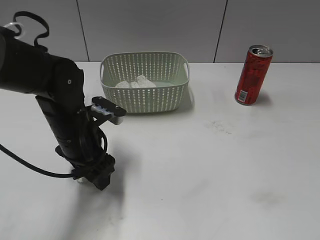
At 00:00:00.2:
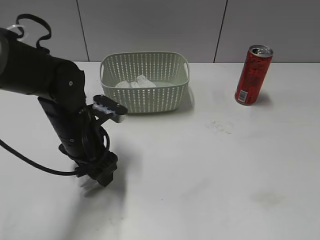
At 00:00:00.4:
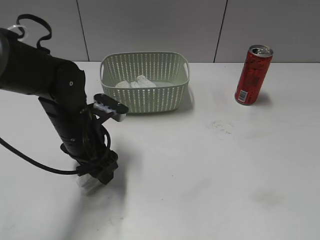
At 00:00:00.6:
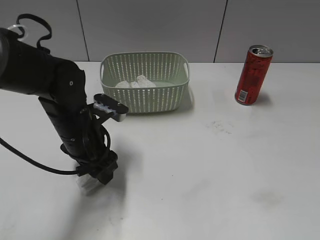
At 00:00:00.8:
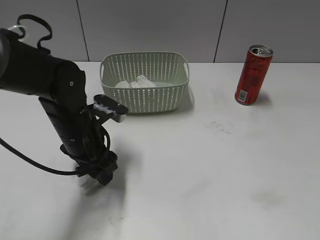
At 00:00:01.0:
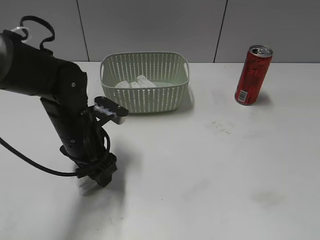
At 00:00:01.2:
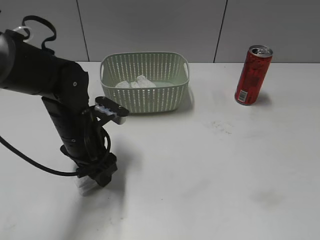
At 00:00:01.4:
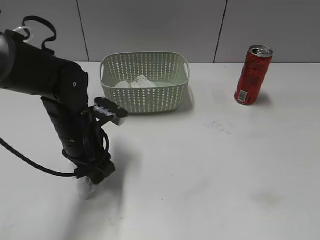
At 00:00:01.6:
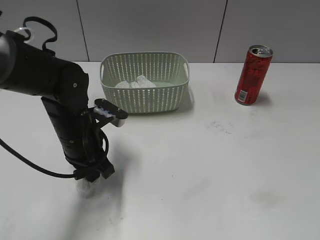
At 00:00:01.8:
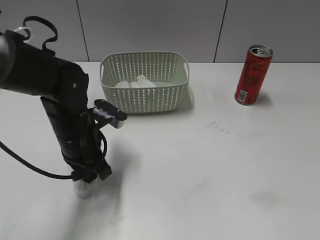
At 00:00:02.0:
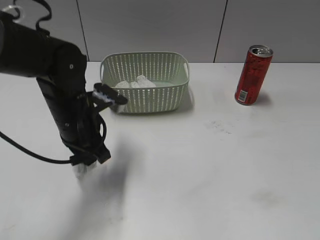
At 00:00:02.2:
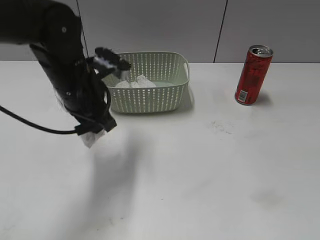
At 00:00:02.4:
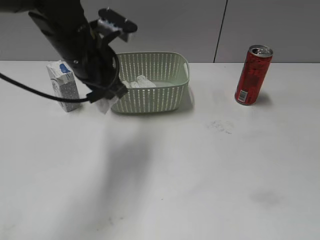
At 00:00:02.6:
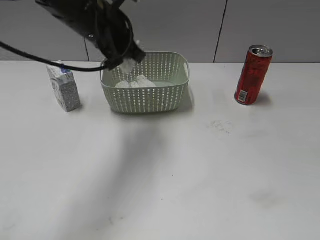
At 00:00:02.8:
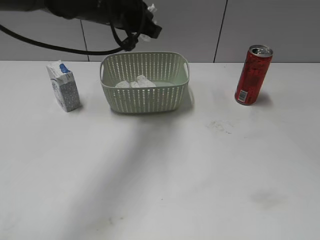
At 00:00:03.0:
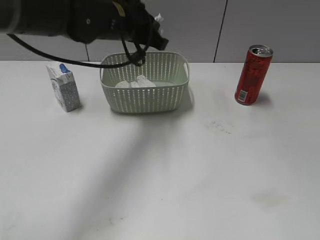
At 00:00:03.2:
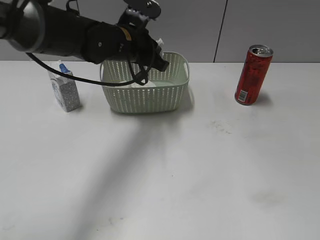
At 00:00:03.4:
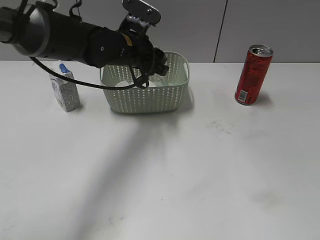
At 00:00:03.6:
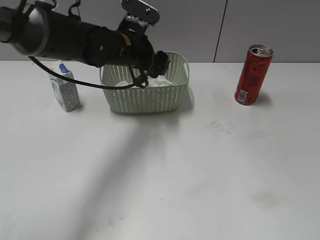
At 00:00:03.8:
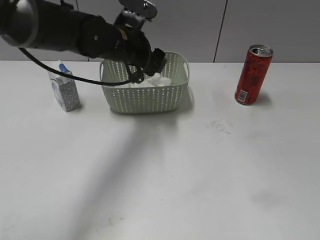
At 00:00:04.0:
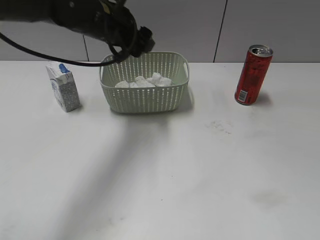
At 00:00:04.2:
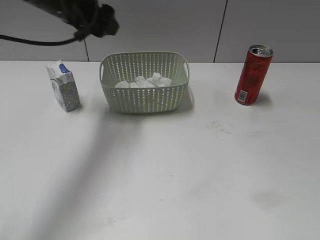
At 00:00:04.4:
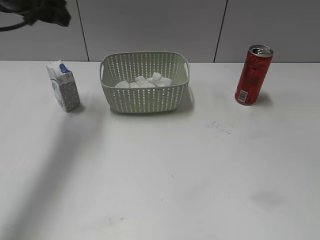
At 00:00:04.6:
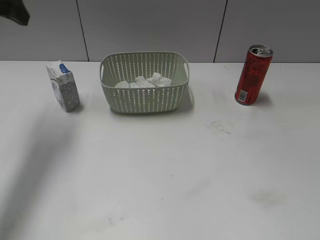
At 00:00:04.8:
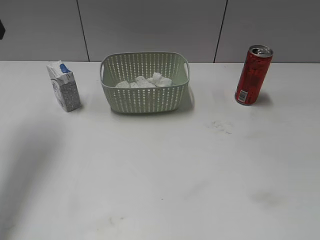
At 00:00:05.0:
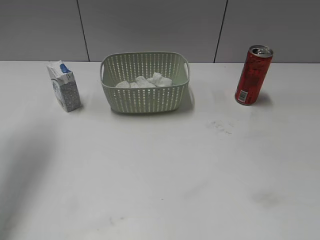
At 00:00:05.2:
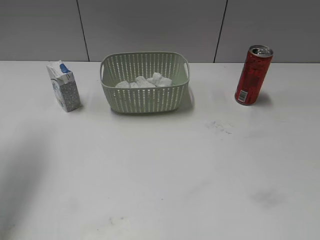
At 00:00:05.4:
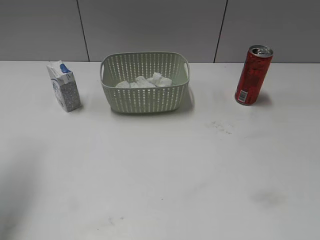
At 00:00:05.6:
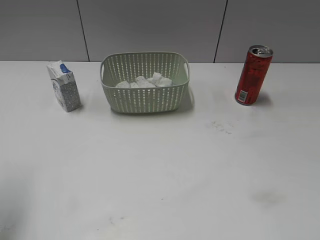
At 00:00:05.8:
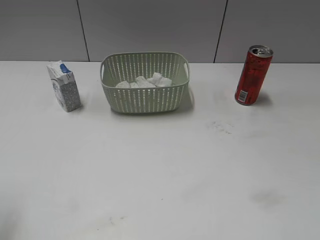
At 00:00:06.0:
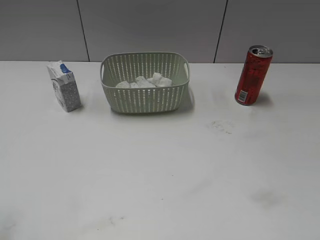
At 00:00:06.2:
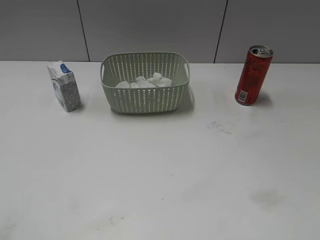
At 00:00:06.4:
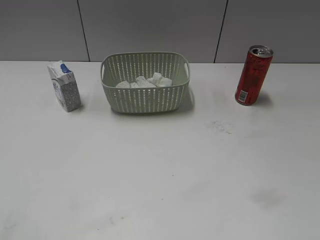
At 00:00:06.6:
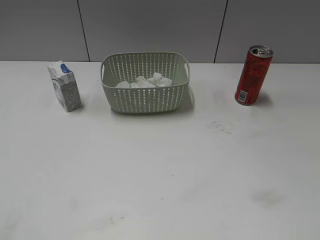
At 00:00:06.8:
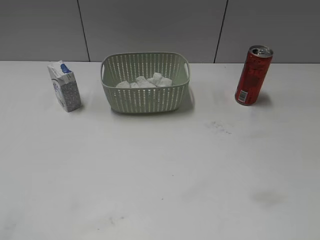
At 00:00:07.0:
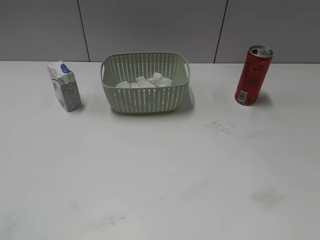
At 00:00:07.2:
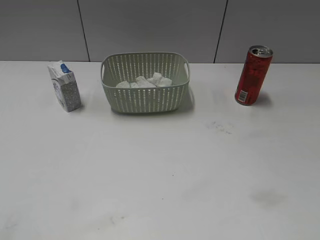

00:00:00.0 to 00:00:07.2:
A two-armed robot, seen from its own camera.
Step, 00:00:02.0 to 00:00:03.8: Place the waste paper in the basket with left gripper.
00:00:00.0 to 00:00:01.4: The left gripper closes up.
00:00:01.4 to 00:00:02.8: The left gripper is displaced upward and forward by approximately 20 cm, and closes.
00:00:02.8 to 00:00:04.4: The left gripper goes approximately 15 cm to the left, and opens.
00:00:04.4 to 00:00:05.8: The left gripper travels backward and to the left by roughly 25 cm.
